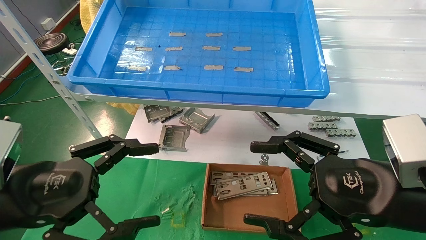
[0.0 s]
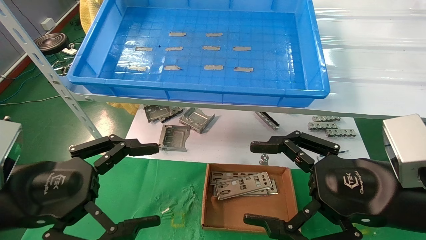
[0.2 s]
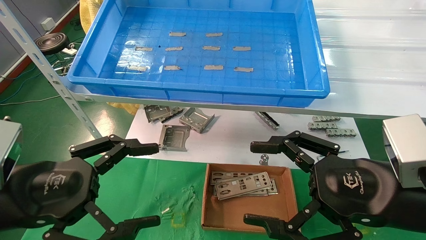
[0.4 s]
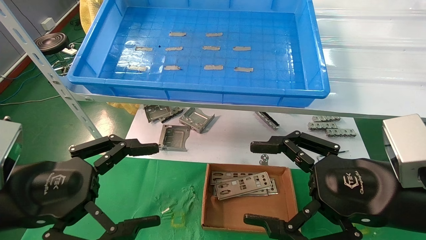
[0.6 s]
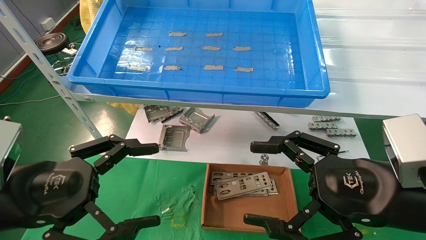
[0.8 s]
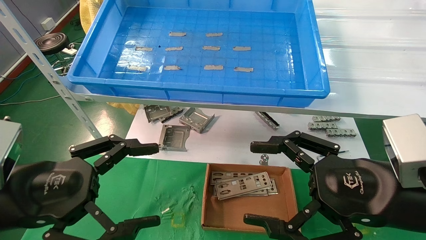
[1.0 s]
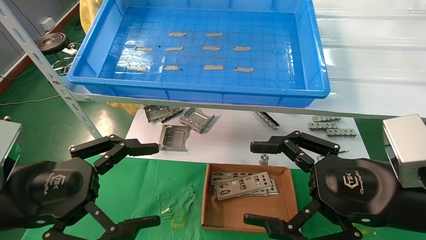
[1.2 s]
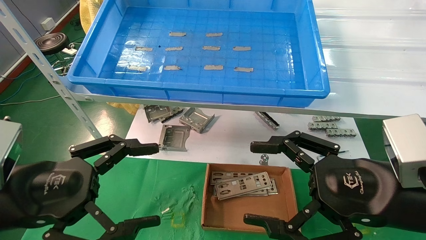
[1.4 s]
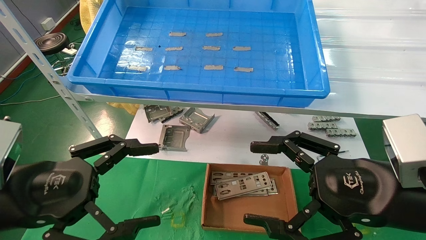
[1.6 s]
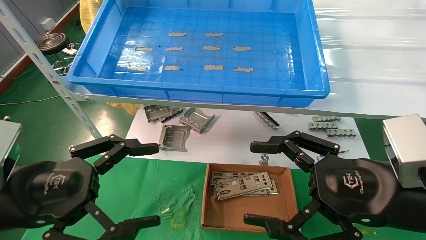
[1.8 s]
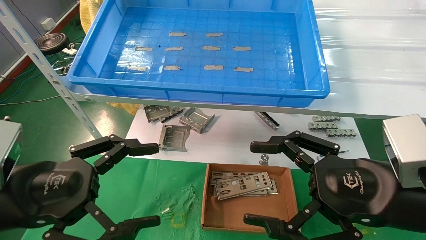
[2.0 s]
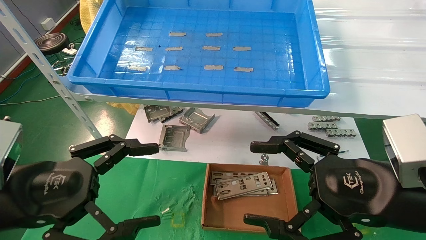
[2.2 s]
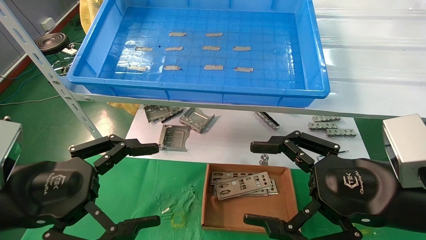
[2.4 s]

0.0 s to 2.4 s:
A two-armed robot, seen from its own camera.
Task of the whole recording: pick up the parts on the tray and put them in the cardboard box.
0.0 to 2.4 s: The two grippers keep their place.

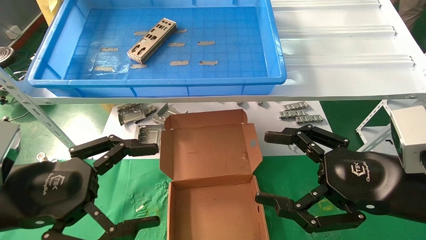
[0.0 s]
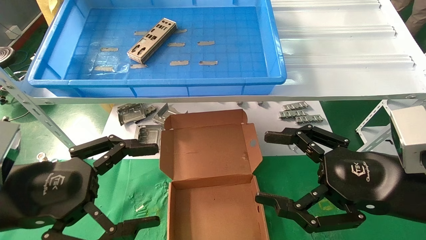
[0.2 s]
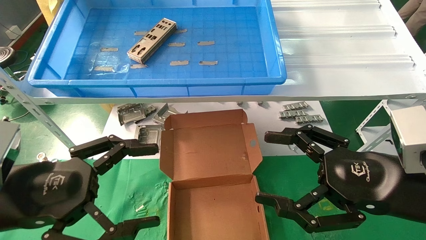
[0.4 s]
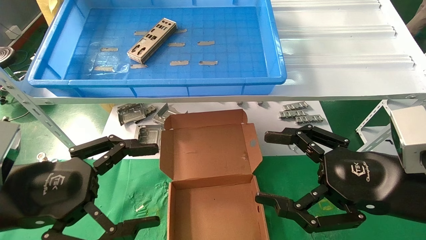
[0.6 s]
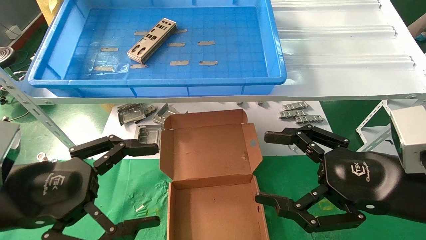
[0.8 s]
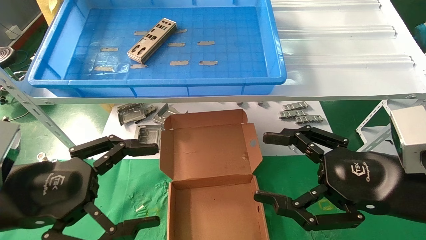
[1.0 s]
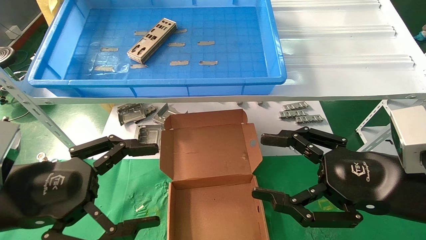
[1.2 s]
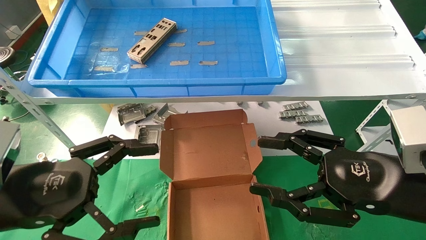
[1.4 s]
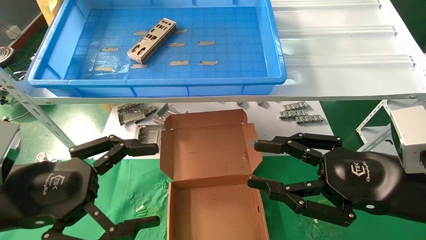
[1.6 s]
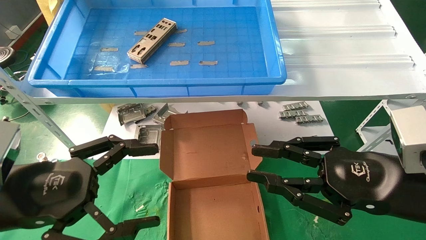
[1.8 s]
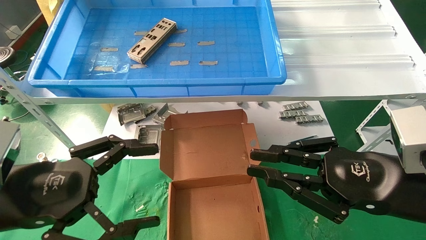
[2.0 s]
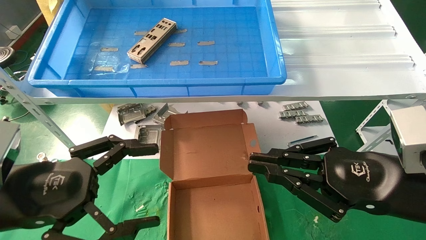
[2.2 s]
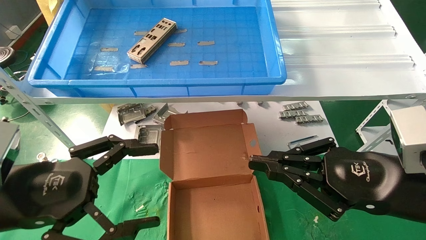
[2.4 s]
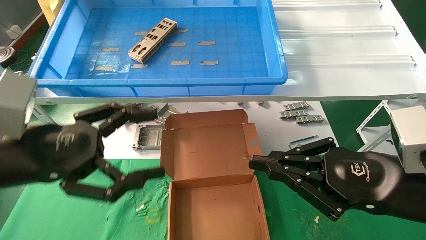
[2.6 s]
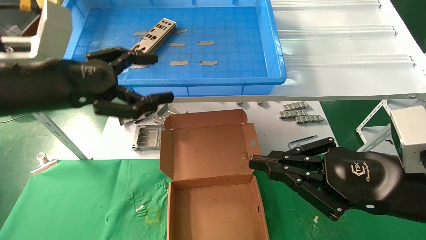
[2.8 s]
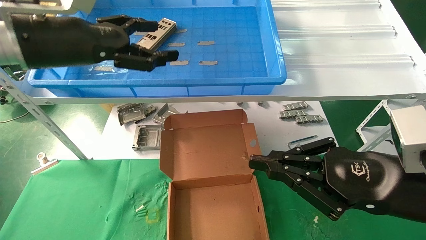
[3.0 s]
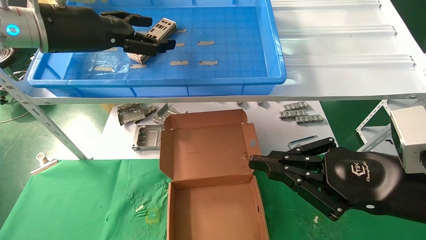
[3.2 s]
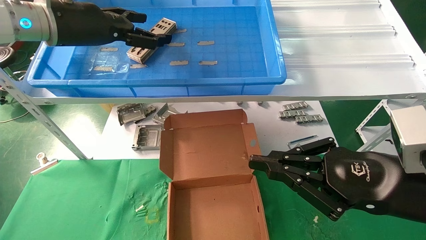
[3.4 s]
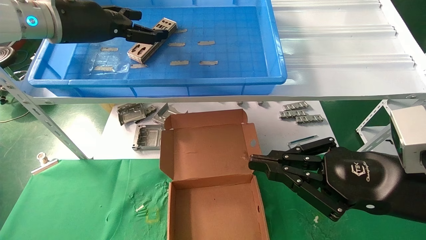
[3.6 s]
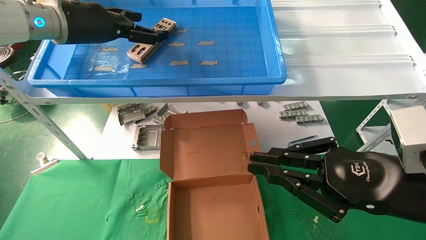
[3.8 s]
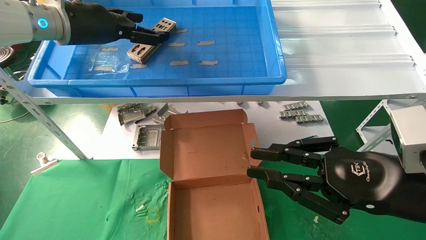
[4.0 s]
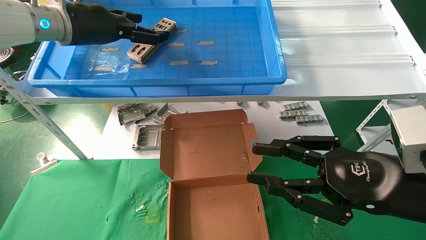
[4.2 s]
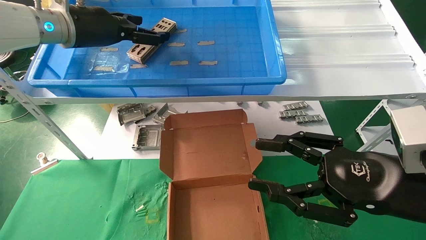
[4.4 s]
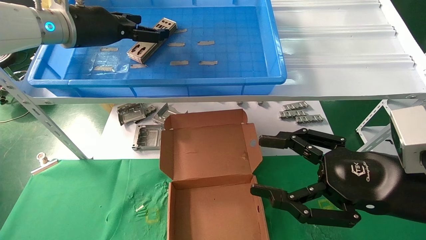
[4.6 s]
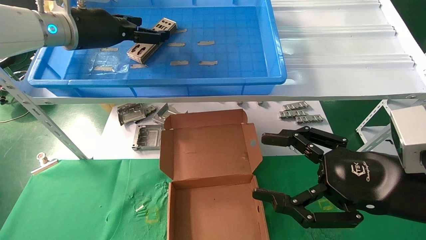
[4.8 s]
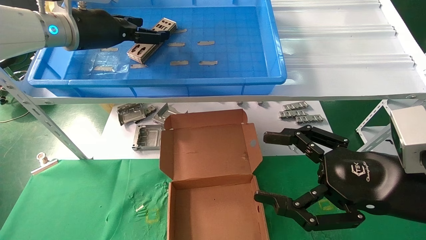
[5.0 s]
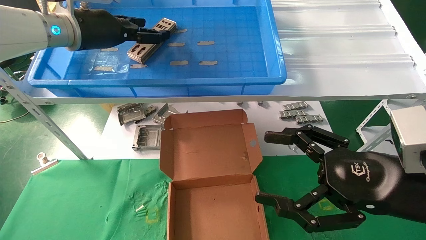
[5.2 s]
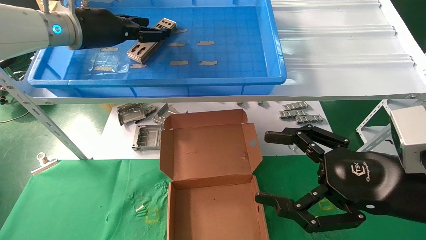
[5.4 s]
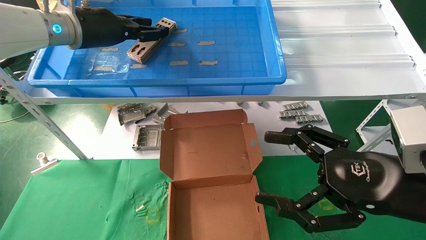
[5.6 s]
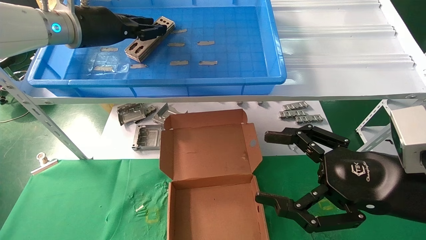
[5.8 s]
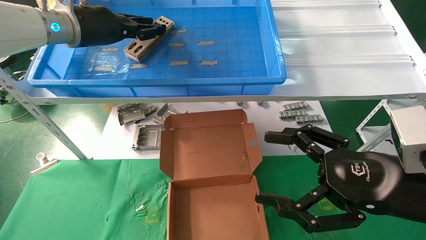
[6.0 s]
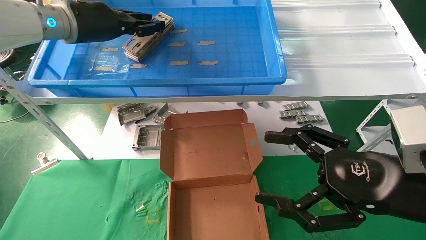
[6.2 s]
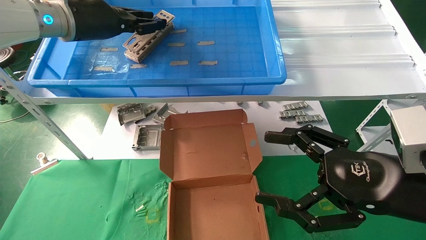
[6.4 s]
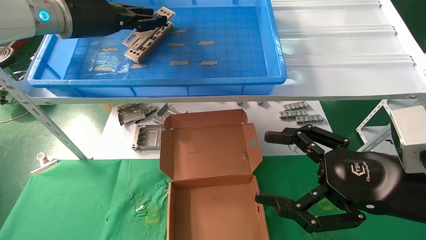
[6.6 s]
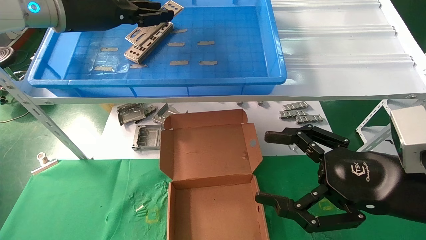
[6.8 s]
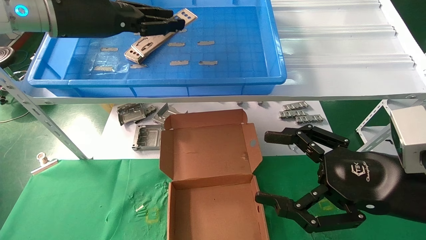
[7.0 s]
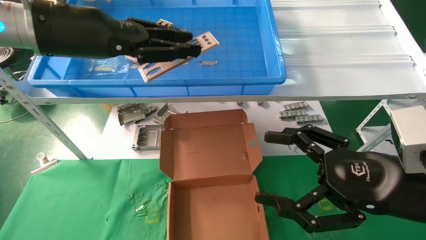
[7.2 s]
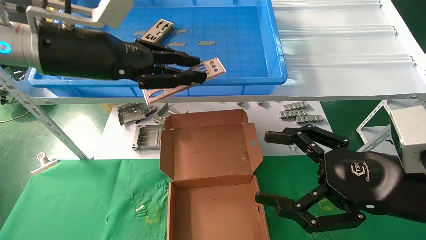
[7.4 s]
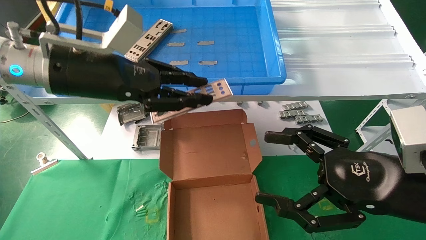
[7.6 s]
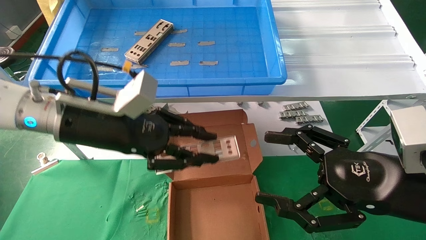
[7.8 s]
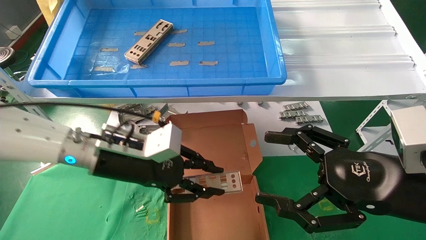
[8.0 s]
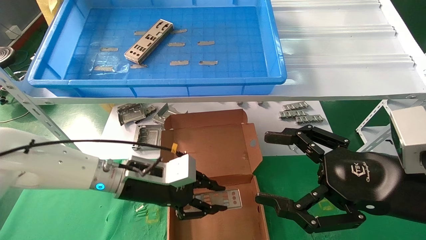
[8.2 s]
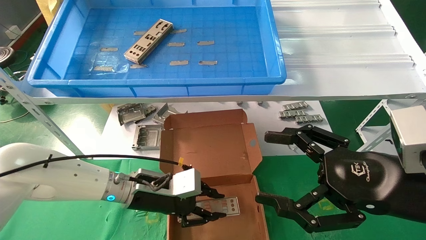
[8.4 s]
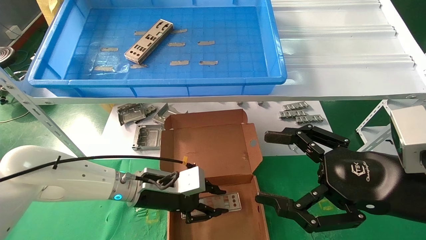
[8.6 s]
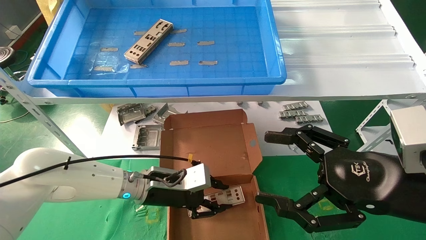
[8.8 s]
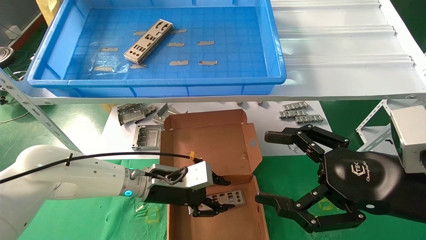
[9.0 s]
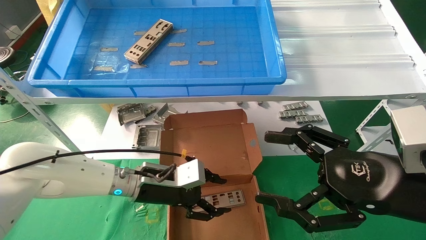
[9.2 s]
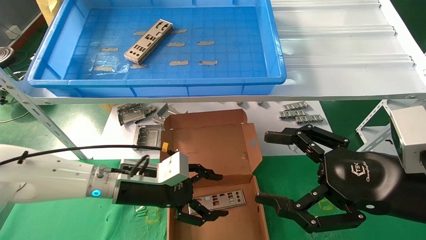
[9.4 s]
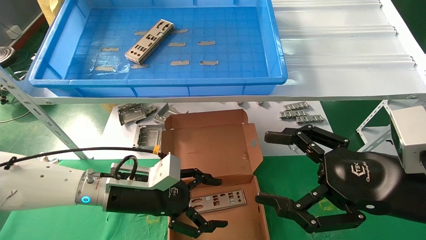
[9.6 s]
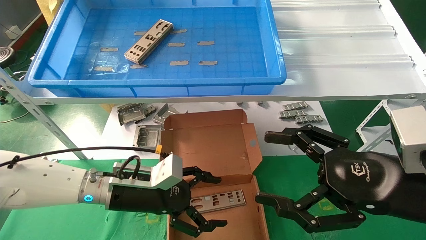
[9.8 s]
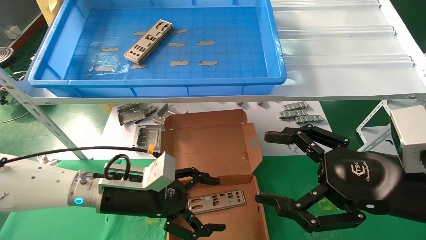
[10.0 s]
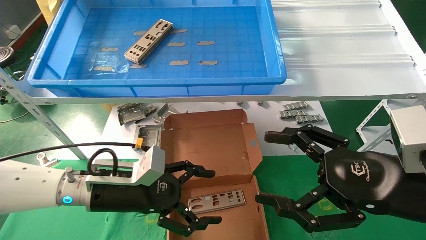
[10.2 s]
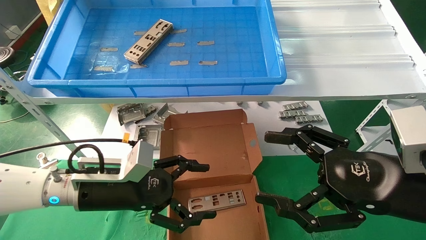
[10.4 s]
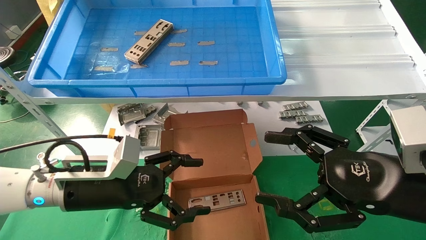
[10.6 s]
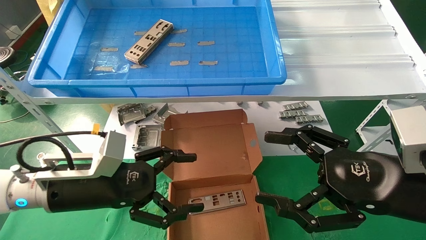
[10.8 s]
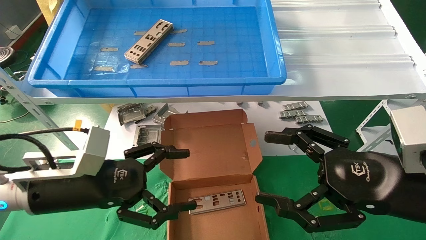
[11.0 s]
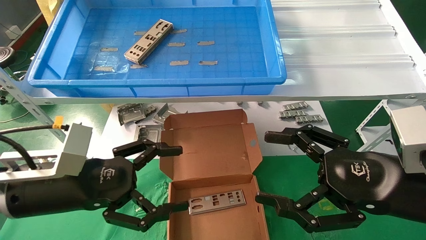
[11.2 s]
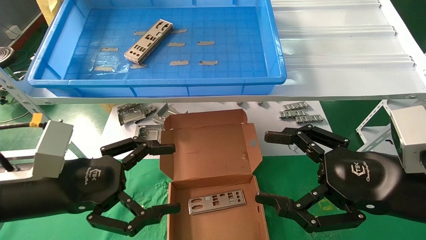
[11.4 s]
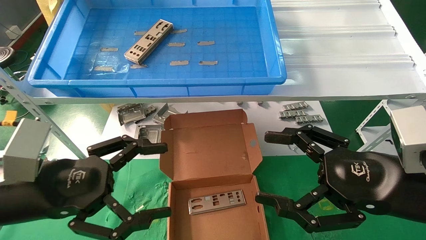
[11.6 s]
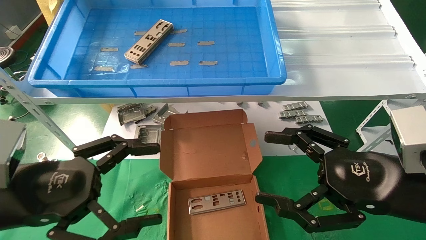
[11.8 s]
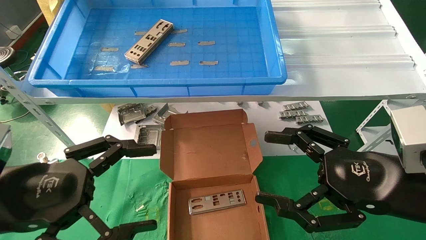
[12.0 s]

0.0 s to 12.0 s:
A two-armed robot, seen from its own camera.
Task of the whole recording: pick up the parts on the tray and put them in the cardboard box.
Step, 2.8 to 6.0 s: Pick up the IO bracket from the container box.
Step, 6.2 to 9.0 s: Place the IO bracket into the ingredient slot.
0.0 to 1.6 s: The right gripper closes its fingers.
1.6 to 3.0 s: The right gripper closes. The left gripper goes roughly 20 cm upward and forward.
3.0 to 4.4 s: The left gripper travels forward by some 10 cm. Meanwhile the right gripper opens.
4.4 to 6.0 s: The left gripper closes up. The right gripper opens its fingers.
6.0 to 7.6 s: The left gripper heads backward and downward, covering about 15 cm.
7.6 to 9.0 s: The left gripper is displaced downward by approximately 25 cm.
9.0 to 10.4 s: The left gripper moves backward and to the left, roughly 10 cm, and opens up.
10.4 to 12.0 s: The left gripper shifts roughly 15 cm backward, to the left and upward.

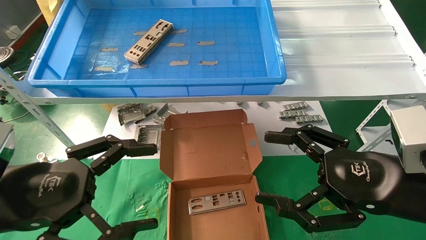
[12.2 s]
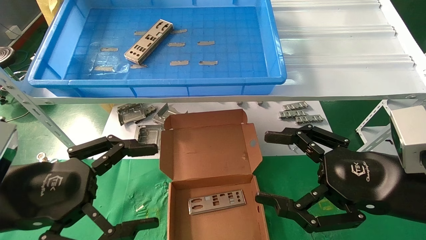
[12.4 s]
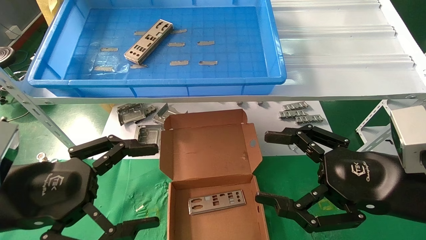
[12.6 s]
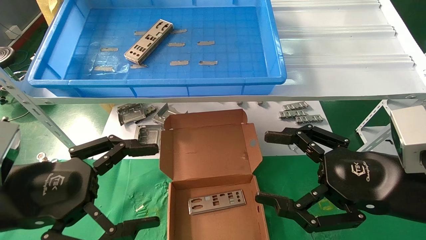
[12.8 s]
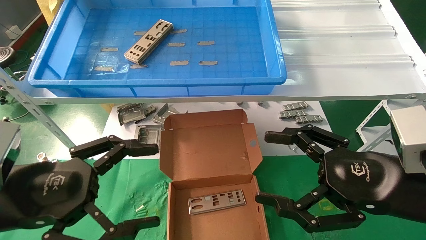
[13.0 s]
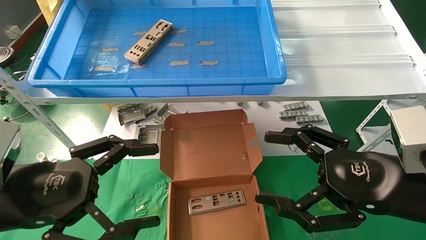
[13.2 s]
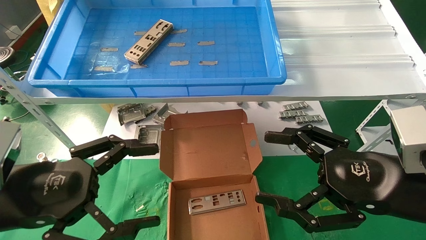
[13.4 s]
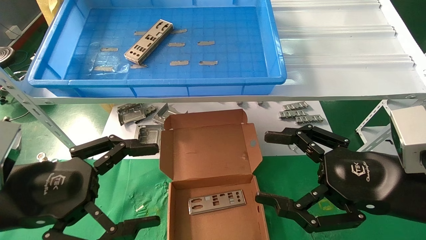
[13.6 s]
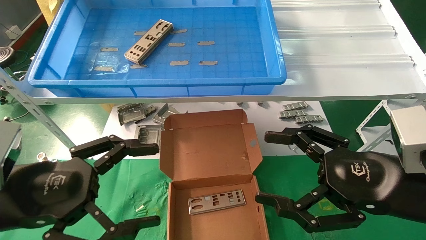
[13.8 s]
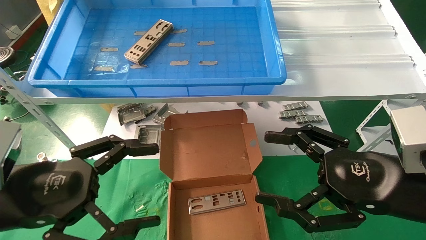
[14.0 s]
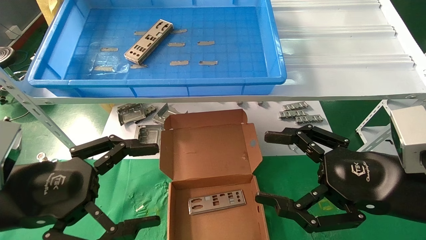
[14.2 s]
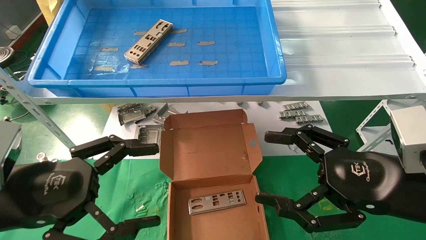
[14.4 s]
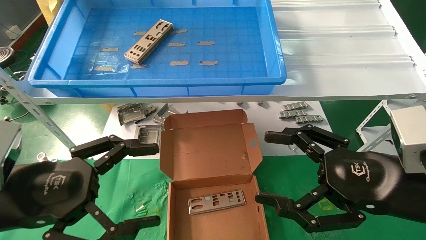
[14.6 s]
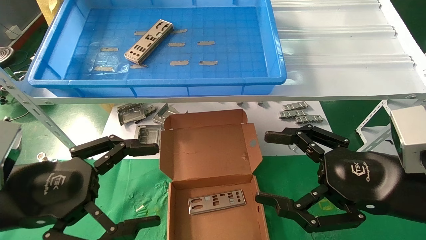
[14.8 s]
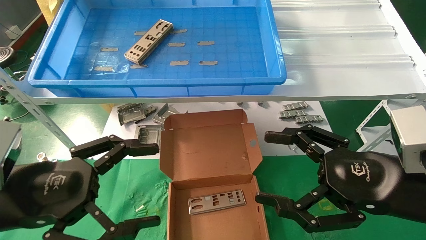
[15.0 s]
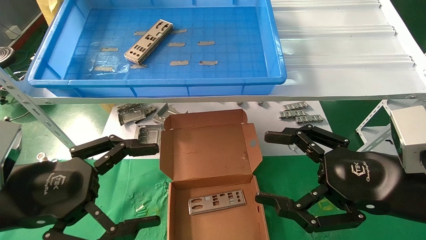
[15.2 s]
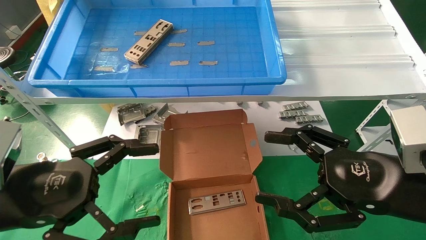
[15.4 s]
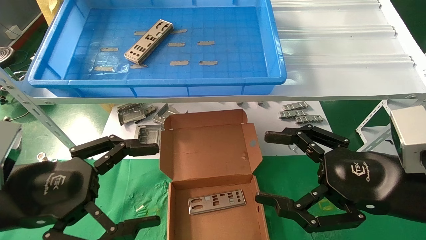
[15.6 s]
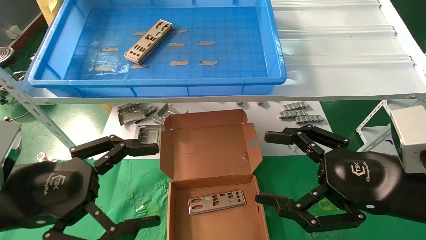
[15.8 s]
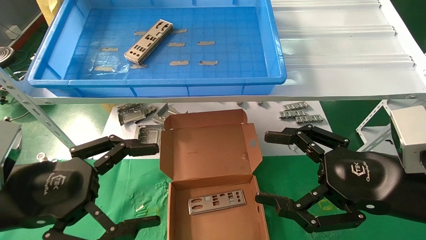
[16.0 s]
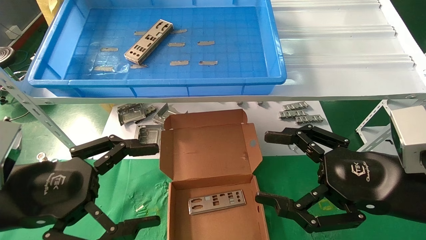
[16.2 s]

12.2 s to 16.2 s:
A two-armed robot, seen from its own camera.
Task of the whole recording: pick up the parts on the tray and put them in the cardboard box.
12.2 to 16.2 s: The two grippers keep their place.
